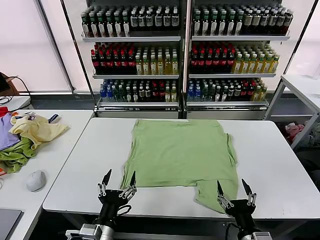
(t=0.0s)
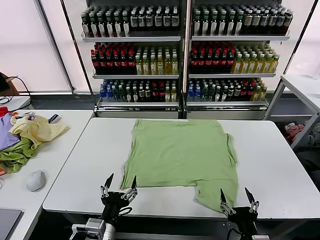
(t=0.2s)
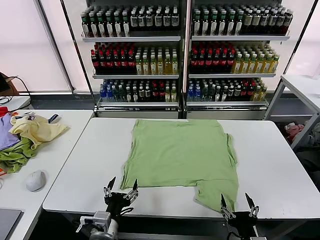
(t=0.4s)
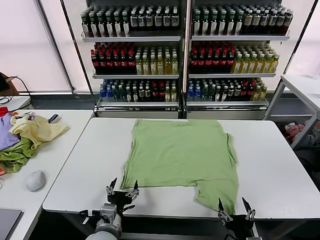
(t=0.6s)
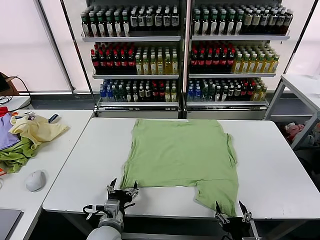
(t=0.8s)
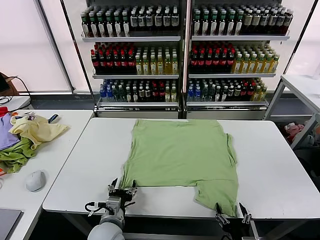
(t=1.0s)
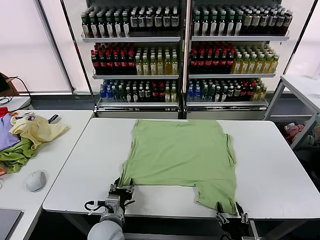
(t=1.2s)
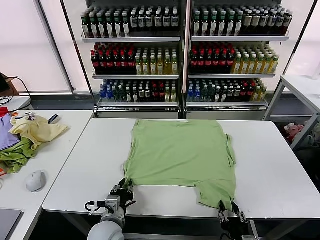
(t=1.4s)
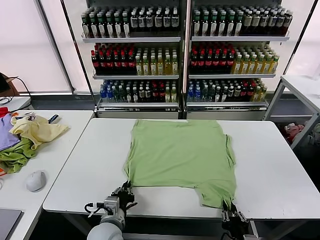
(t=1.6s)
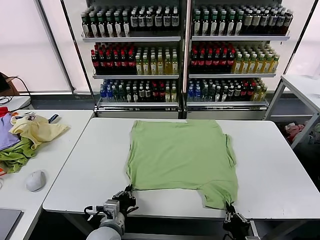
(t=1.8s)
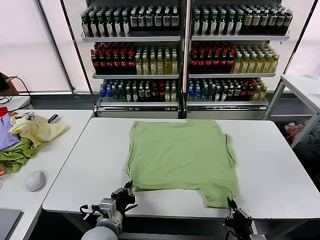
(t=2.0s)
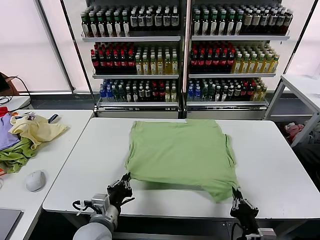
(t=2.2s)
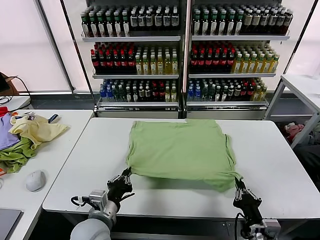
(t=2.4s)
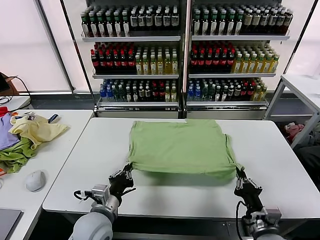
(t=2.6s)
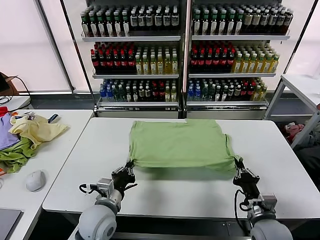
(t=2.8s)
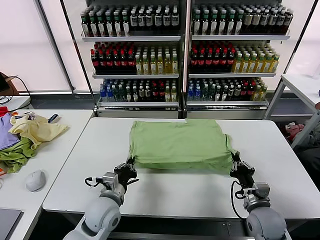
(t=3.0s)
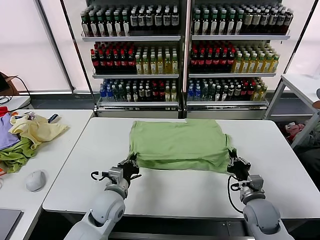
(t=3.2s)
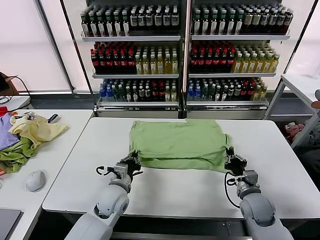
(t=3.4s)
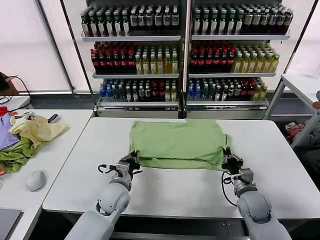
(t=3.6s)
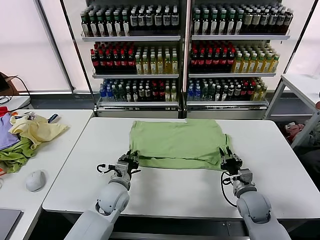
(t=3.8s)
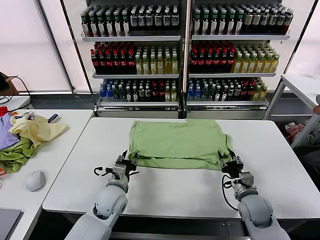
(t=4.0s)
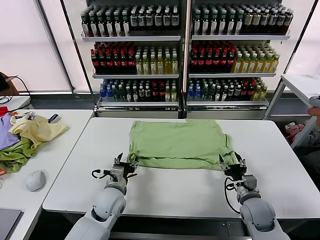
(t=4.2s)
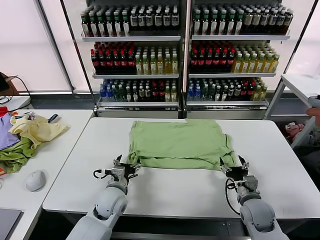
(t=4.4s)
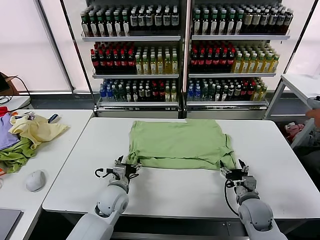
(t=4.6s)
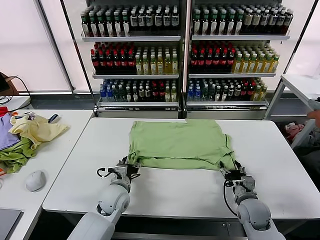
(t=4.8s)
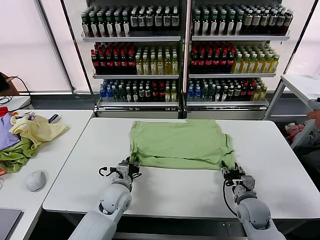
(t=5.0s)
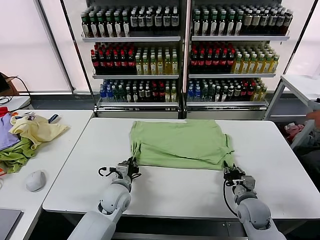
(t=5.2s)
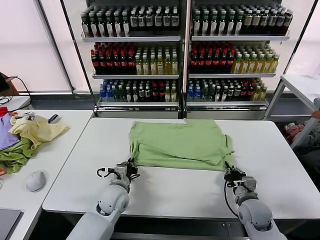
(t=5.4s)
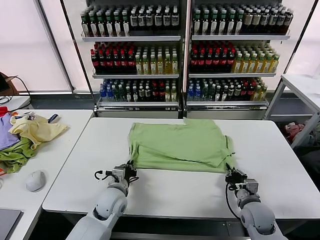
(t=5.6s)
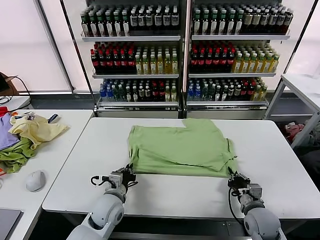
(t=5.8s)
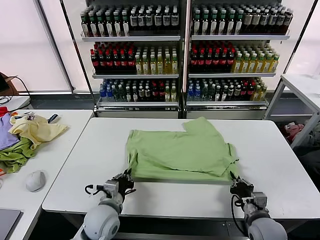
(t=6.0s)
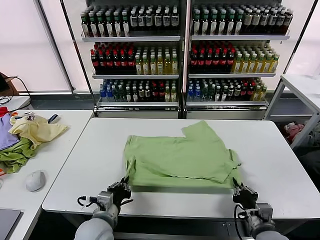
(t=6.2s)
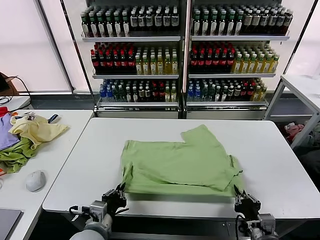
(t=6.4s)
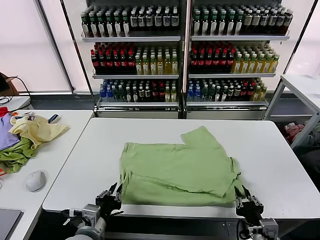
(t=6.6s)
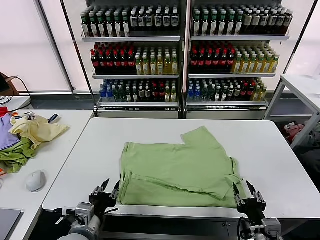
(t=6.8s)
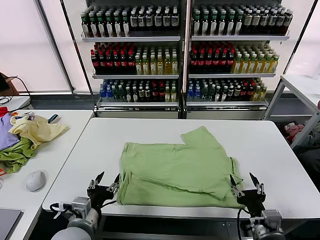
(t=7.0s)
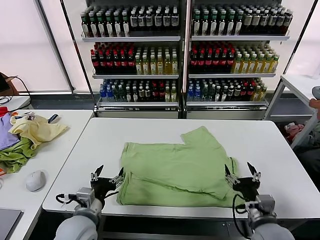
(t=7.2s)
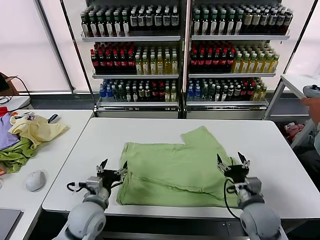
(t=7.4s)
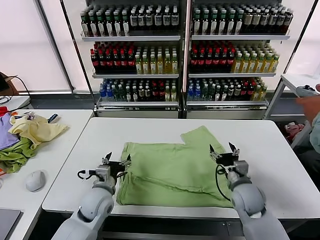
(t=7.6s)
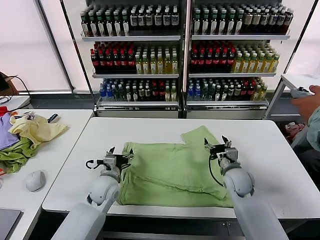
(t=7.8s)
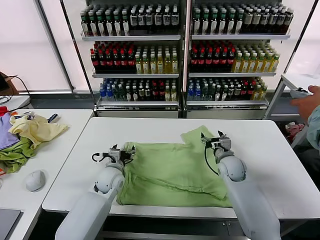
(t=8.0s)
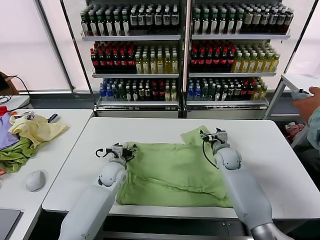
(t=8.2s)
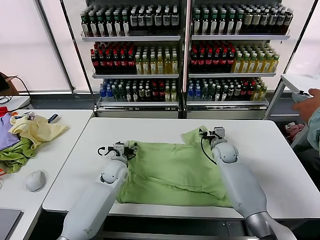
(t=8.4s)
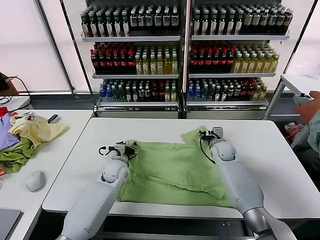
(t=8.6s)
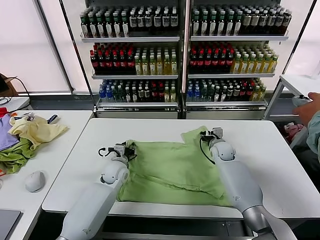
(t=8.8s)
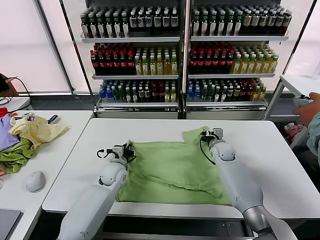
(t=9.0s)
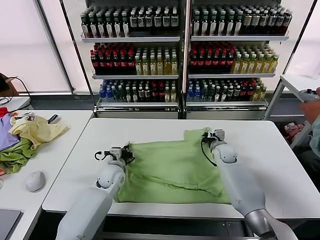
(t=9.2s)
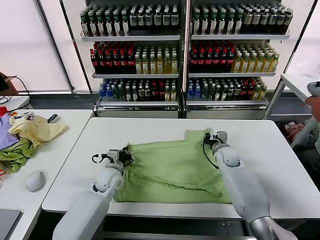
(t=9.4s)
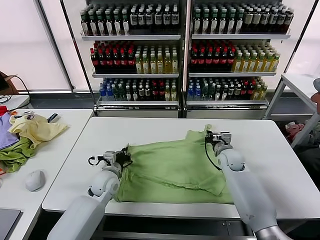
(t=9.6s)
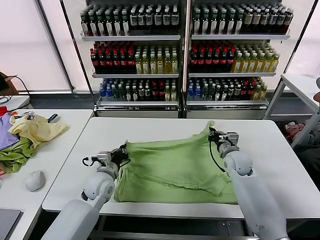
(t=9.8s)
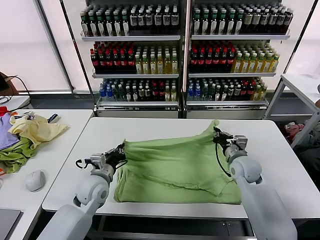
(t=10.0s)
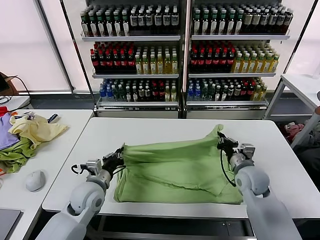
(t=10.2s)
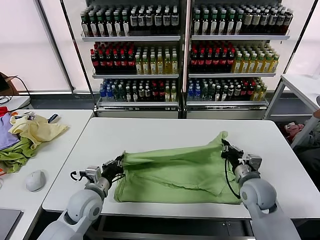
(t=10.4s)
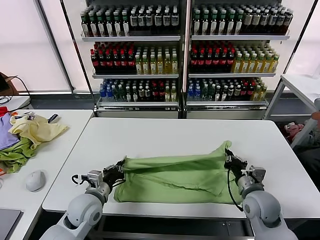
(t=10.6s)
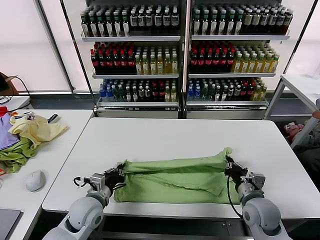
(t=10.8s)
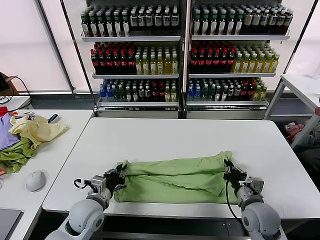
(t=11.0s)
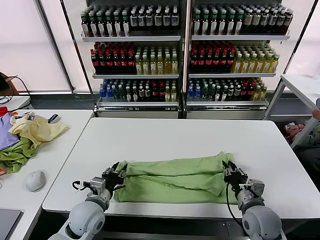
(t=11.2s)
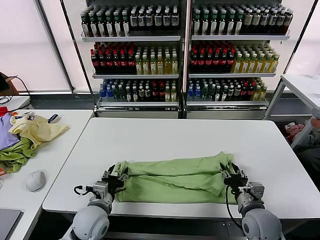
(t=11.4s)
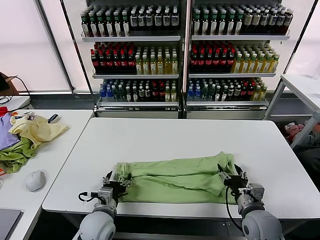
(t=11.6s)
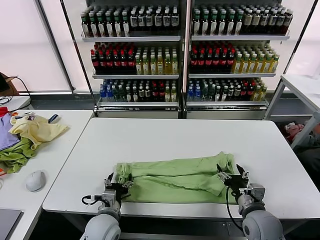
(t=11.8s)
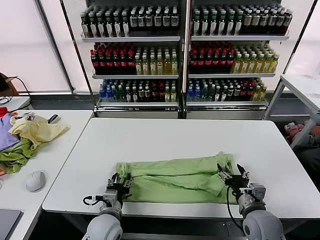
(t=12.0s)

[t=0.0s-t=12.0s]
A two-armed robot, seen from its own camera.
Task of the whole recording: fold and organize the clothes.
Step, t=0.0s to t=1.8s: use both grippers simultaneously to clamp the lower edge of the clothing fabric.
Step, t=2.0s to t=4.0s: use both grippers to drag the lower edge of the fabric forward and fold it over the upper edge.
Step, t=4.2s to t=6.6s: Drag the clothes downward with both gripper.
Step, t=6.8s to t=9.2s: use both grippers simultaneously to clamp the upper edge of the clothing fabric.
Step, t=9.4s to t=11.4s: use both grippers to drag the upper edge of the fabric backward and fold it over the lower edge.
t=1.6s to t=3.0s: The right gripper heads forward, covering about 15 cm. Meanwhile the left gripper moves forward, roughly 5 cm.
t=3.0s to t=4.4s: The left gripper heads forward, covering approximately 5 cm, and opens up. The right gripper opens up.
t=4.4s to t=6.0s: The grippers both shift backward by some 5 cm. The left gripper closes; the right gripper closes.
t=6.0s to t=7.6s: The right gripper moves forward, some 15 cm, and opens up; the left gripper goes backward and returns, roughly 10 cm each way, and opens up.
t=7.6s to t=9.0s: Both grippers travel together forward, about 15 cm. The right gripper closes its fingers; the left gripper closes up.
t=9.0s to t=10.4s: The right gripper is displaced backward by some 20 cm; the left gripper moves backward and upward, roughly 15 cm.
t=10.4s to t=12.0s: The left gripper travels to the right, backward and downward by approximately 10 cm, and opens, while the right gripper goes about 10 cm backward, and opens up.

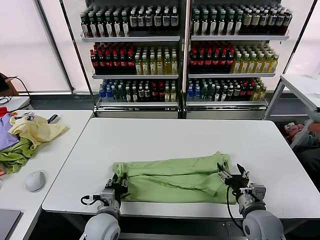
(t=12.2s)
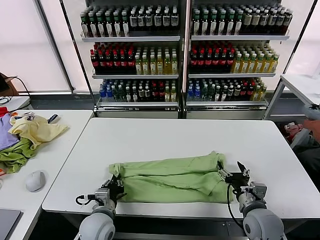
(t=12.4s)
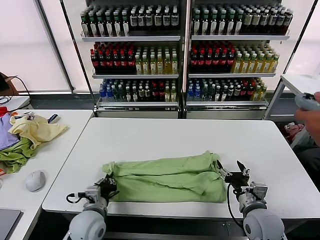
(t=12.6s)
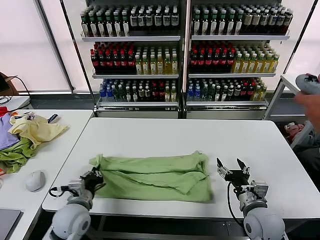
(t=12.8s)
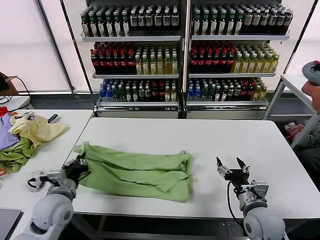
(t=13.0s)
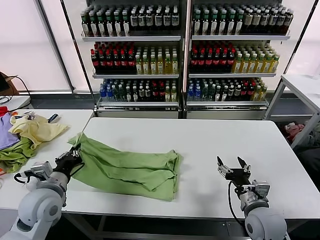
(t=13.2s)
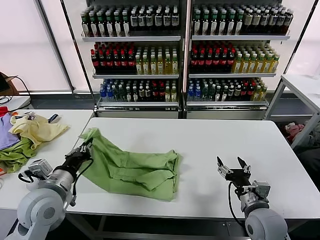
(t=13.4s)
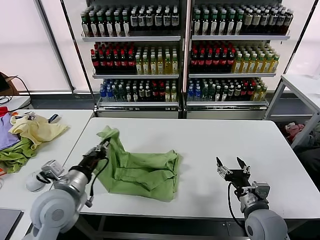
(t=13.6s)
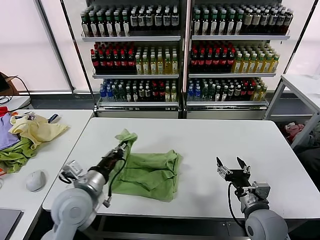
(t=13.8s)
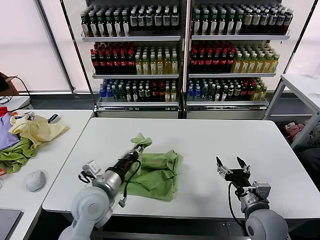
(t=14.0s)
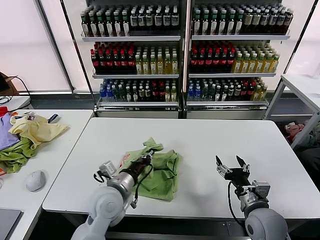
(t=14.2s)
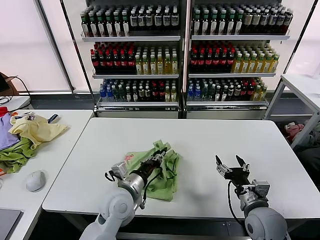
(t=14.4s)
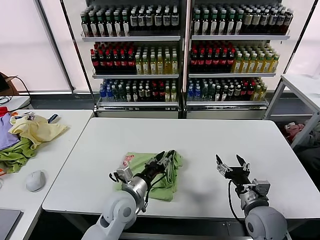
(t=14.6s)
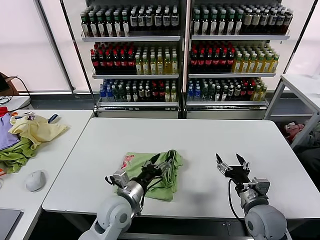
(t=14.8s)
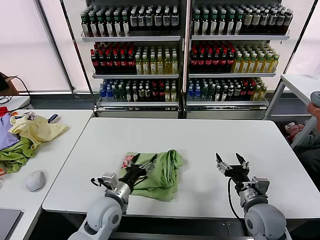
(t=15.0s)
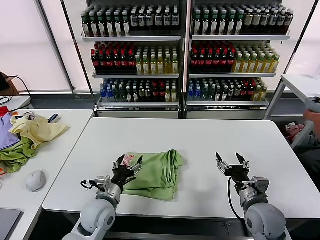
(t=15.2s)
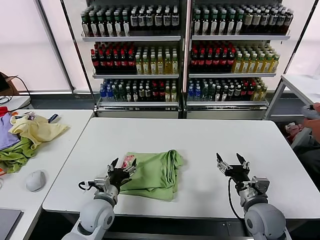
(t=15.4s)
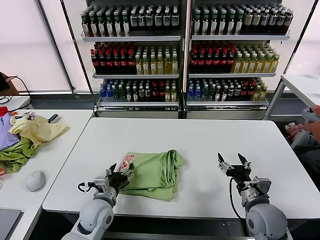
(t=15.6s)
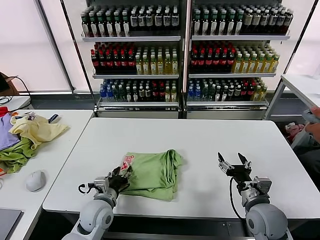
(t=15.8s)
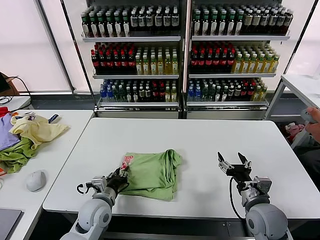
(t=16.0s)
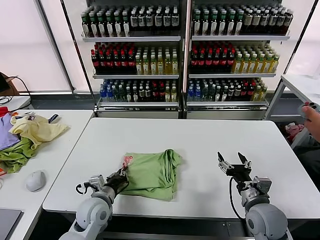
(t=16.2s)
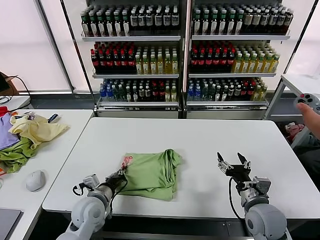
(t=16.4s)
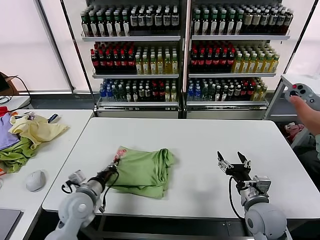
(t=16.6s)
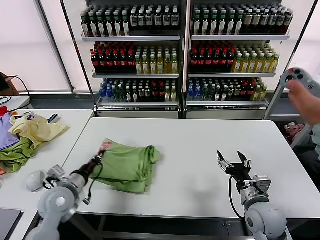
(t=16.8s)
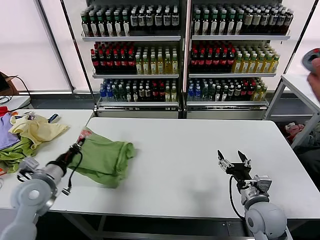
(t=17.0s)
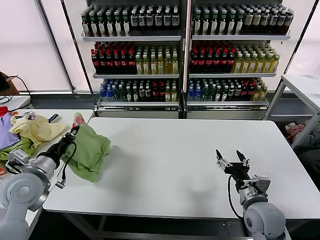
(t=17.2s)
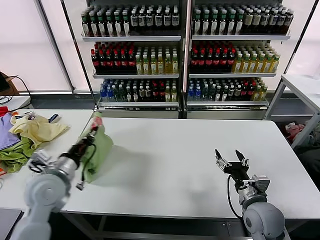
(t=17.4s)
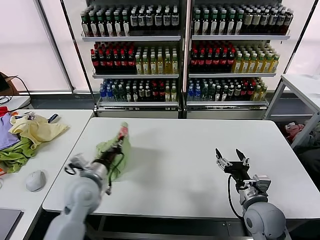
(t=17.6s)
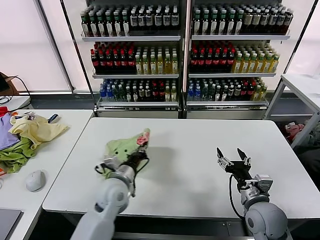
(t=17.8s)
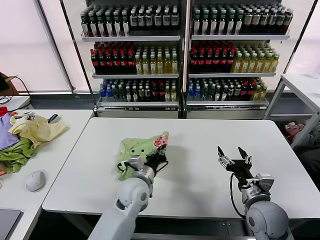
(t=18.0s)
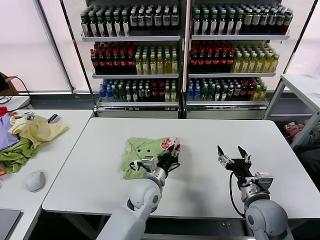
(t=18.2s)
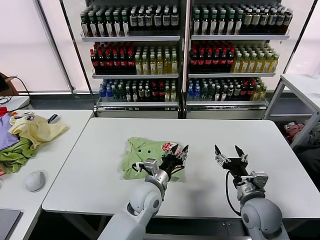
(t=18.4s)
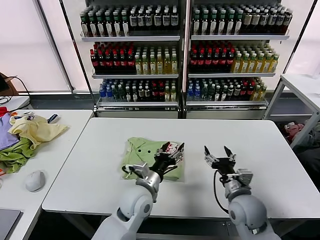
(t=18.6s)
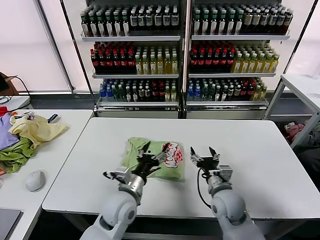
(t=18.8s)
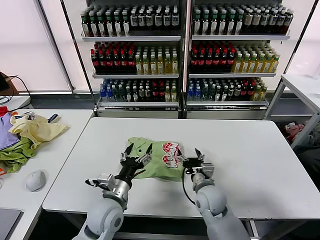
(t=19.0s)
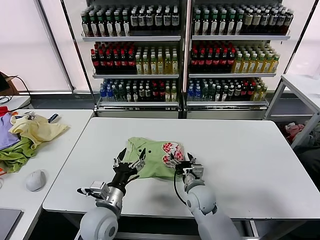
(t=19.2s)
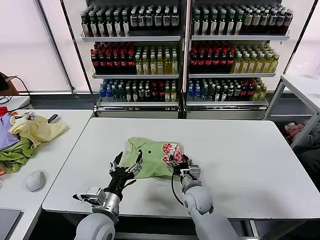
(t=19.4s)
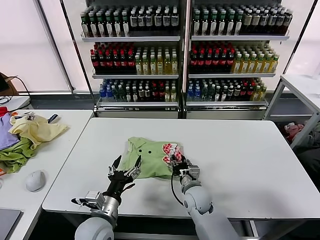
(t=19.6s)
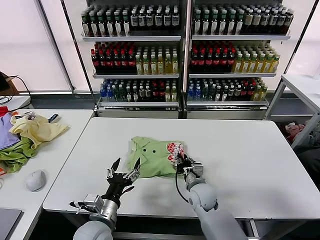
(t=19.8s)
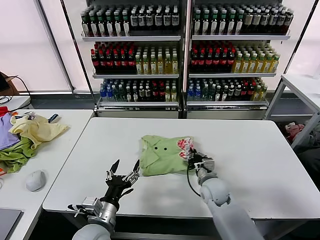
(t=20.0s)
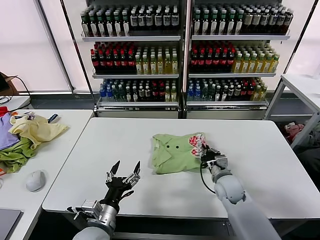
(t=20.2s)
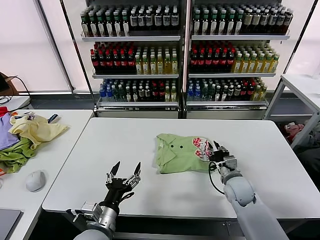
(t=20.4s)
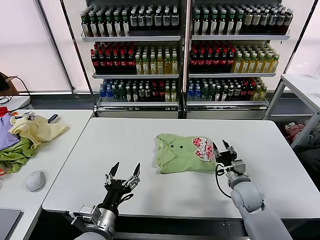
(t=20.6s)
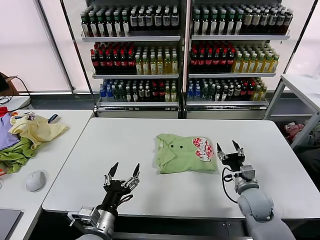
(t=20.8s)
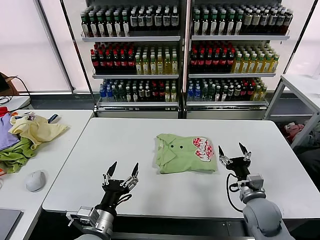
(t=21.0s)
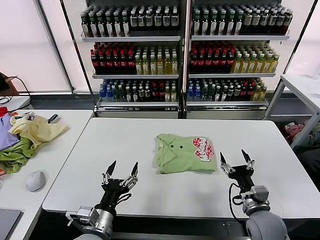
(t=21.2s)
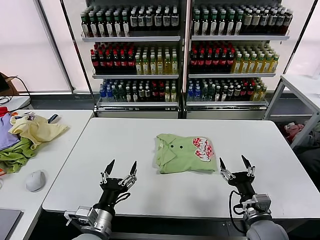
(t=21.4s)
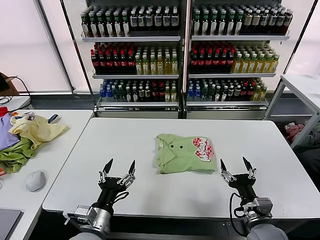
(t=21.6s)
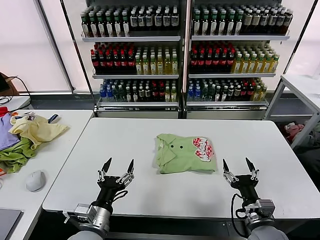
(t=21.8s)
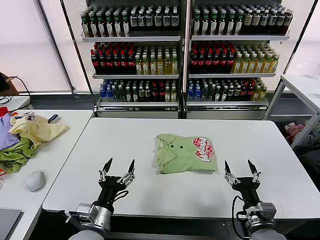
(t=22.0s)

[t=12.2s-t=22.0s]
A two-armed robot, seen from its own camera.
Task of the whole recording: fold and organize the clothes.
Step, t=12.6s to t=14.6s: use the left gripper to drag the left edge of the fabric to the left and folds it over the right edge.
Step, t=14.8s to t=18.2s: Flip the folded clothes over with left gripper.
Step, t=18.4s to t=20.6s: Drag the clothes to the center of the table.
t=12.2s to t=13.6s: The left gripper shifts about 20 cm upward and to the left.
t=13.6s to t=15.0s: The left gripper goes about 15 cm to the right and downward, and opens its fingers.
t=15.0s to t=16.4s: The left gripper goes roughly 5 cm to the left, and closes.
t=16.4s to t=17.8s: The left gripper shifts some 5 cm upward, and goes to the left and returns, roughly 15 cm each way.
t=17.8s to t=19.2s: The right gripper moves to the left, forward and downward, roughly 20 cm. Meanwhile the left gripper goes about 10 cm backward, travels to the right and back again, roughly 15 cm each way, and opens its fingers.
t=19.2s to t=20.6s: The left gripper moves backward, roughly 5 cm. The right gripper travels to the right by roughly 15 cm, and closes its fingers.
t=20.6s to t=22.0s: The right gripper moves backward, roughly 15 cm, and opens its fingers.
